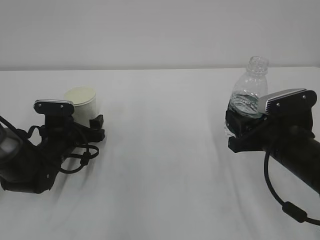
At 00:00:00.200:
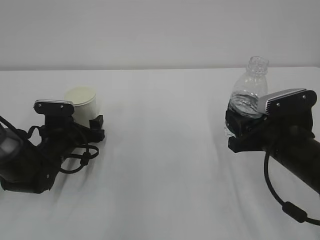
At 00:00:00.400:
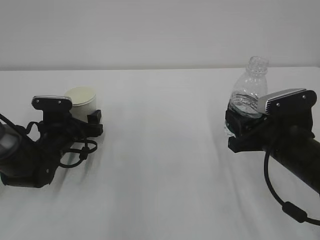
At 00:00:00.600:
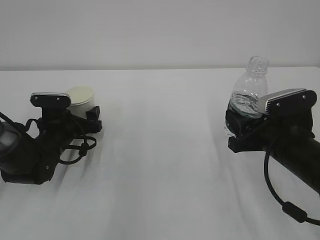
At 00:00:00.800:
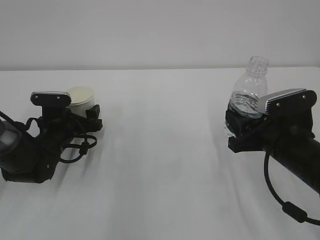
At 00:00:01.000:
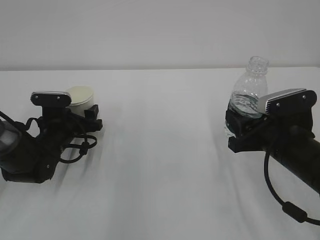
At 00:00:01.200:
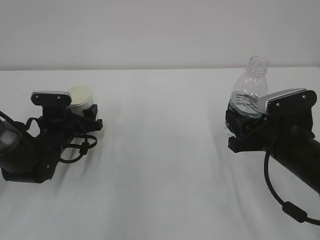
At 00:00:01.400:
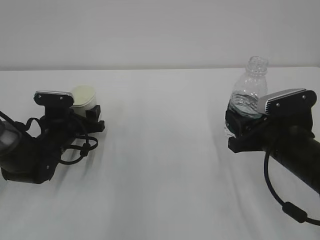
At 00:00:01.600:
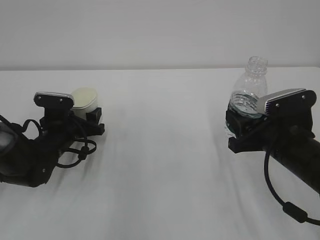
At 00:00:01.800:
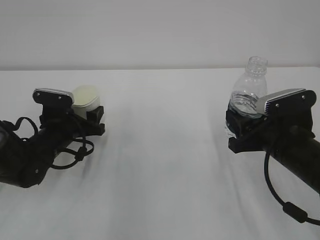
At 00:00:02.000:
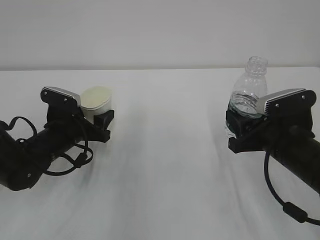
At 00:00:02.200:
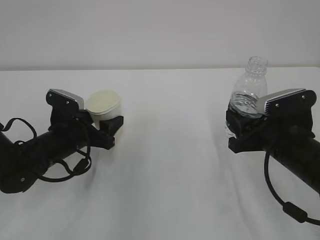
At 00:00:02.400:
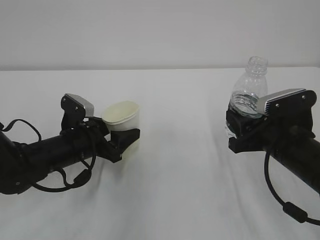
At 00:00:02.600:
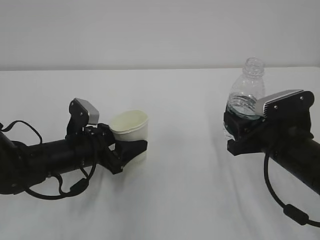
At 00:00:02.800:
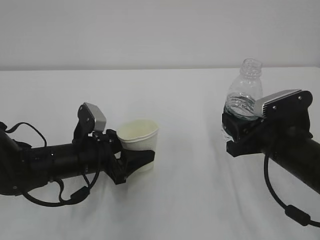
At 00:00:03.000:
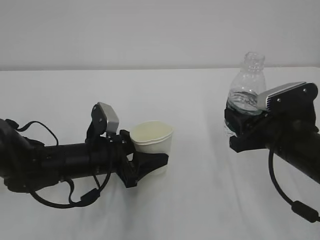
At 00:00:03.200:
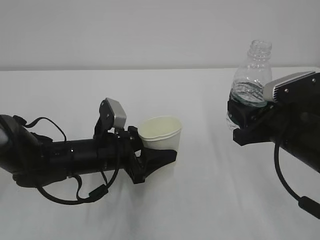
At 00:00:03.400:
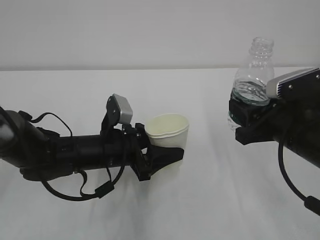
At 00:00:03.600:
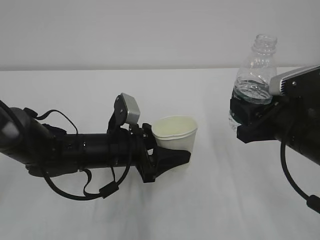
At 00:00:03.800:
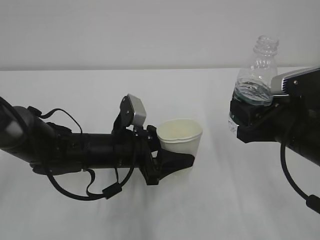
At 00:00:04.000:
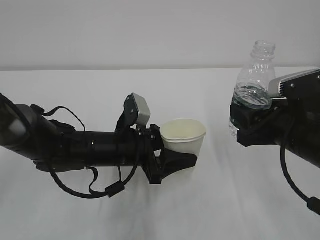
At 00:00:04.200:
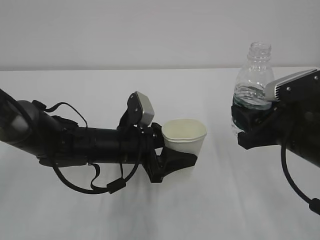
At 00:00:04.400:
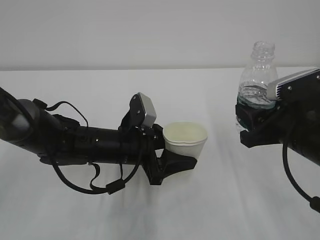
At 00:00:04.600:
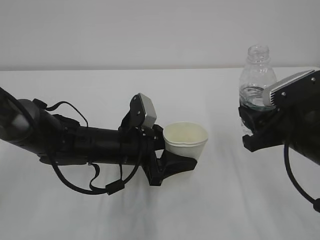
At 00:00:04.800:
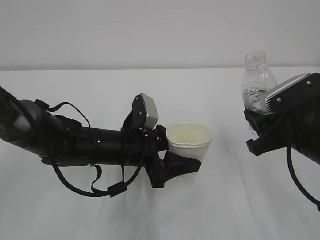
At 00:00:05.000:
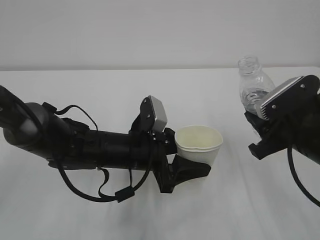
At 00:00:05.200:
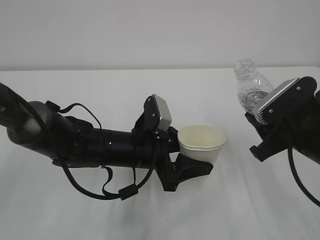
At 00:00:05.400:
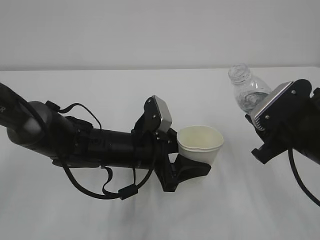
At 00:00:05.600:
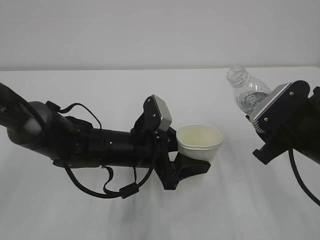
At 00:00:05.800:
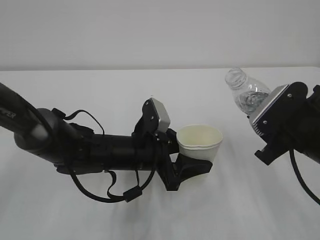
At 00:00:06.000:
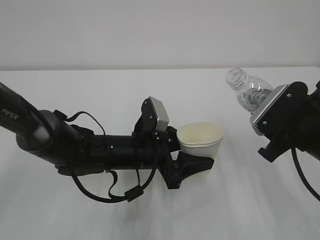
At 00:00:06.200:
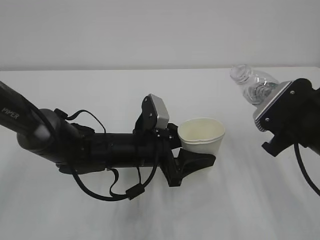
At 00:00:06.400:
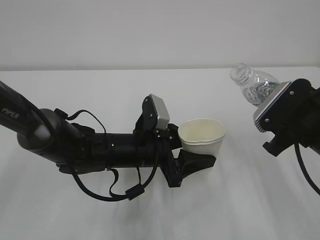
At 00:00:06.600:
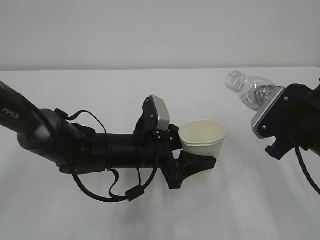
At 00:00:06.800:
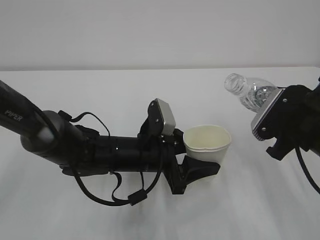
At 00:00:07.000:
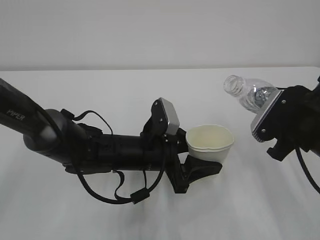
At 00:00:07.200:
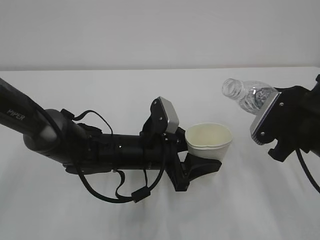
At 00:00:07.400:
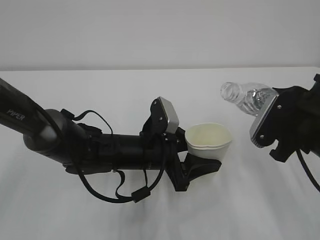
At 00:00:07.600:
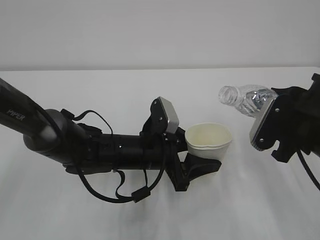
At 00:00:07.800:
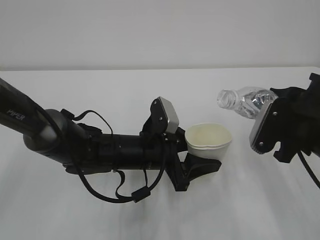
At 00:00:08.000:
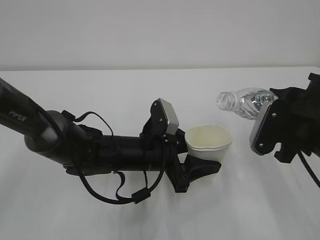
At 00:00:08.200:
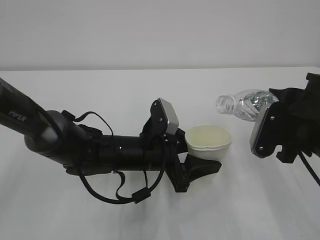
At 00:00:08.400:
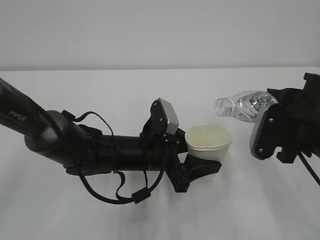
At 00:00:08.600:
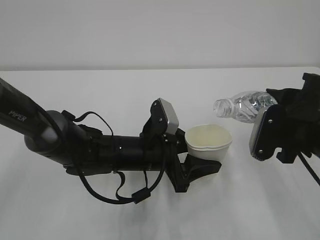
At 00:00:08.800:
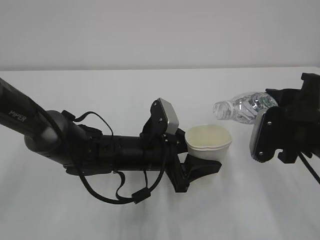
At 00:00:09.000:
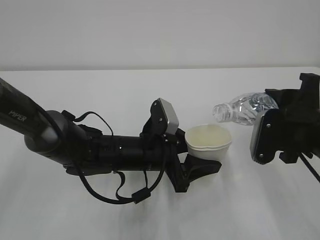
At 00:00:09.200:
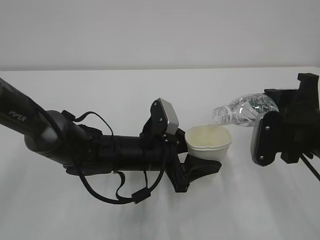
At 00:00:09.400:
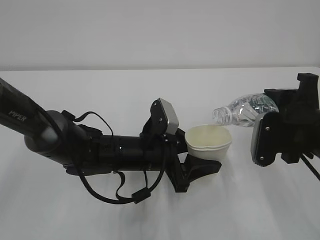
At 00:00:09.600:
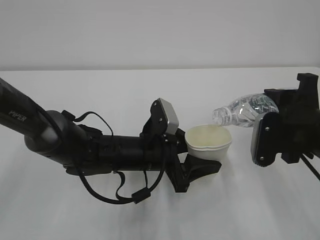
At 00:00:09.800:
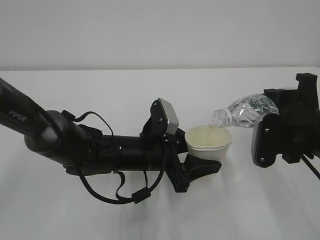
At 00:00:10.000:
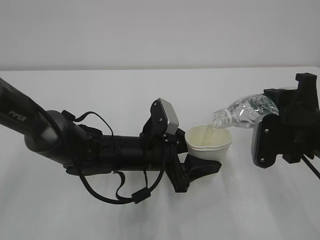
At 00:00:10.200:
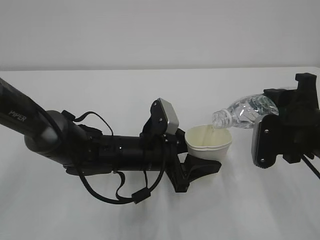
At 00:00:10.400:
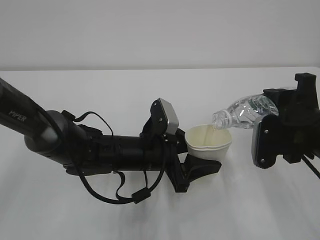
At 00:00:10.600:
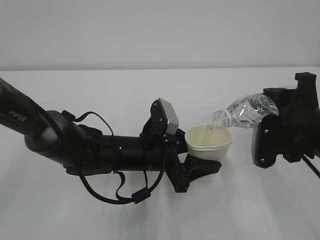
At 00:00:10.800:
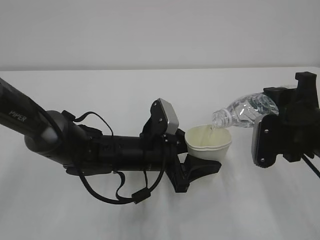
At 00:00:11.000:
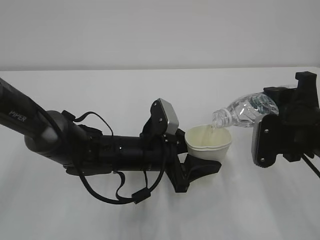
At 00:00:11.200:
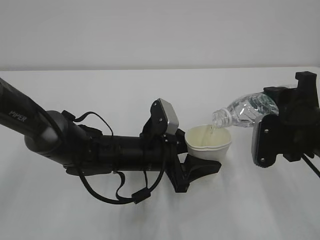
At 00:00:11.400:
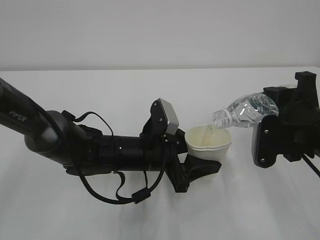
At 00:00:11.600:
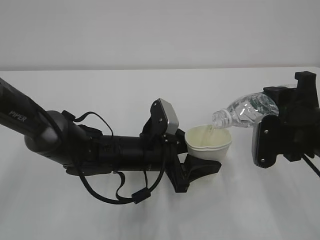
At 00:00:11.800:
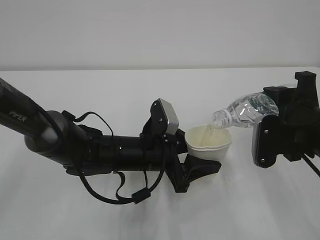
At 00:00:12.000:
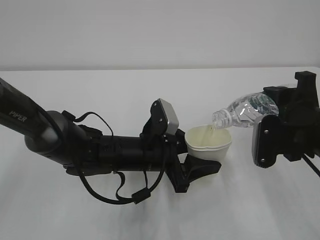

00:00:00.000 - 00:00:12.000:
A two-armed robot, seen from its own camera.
00:00:00.000 - 00:00:01.600: The left gripper closes its fingers.
00:00:01.600 - 00:00:03.000: The left gripper is displaced to the right and backward by approximately 10 cm.
00:00:03.000 - 00:00:04.400: The left gripper heads to the right, covering approximately 5 cm.
00:00:06.000 - 00:00:07.600: There are only small adjustments of the grippers.
00:00:07.600 - 00:00:09.000: The grippers move only a little.
00:00:09.000 - 00:00:10.400: The grippers make only small movements.
00:00:10.400 - 00:00:12.000: Both grippers stay put.

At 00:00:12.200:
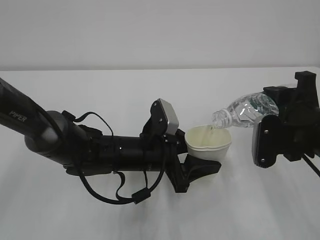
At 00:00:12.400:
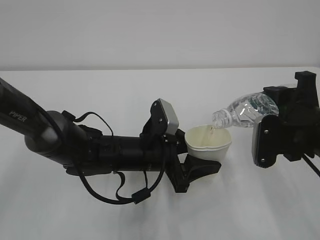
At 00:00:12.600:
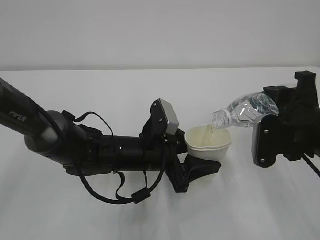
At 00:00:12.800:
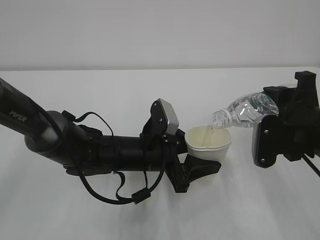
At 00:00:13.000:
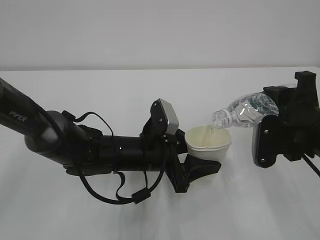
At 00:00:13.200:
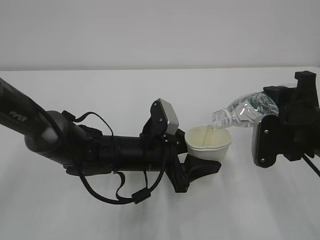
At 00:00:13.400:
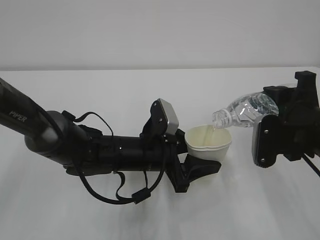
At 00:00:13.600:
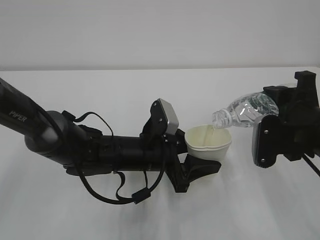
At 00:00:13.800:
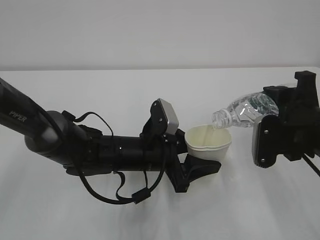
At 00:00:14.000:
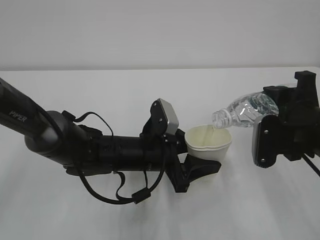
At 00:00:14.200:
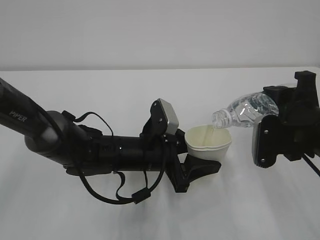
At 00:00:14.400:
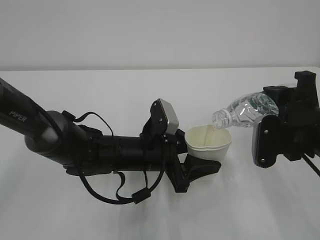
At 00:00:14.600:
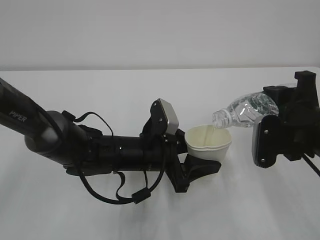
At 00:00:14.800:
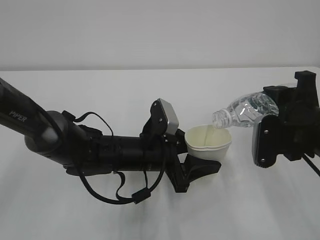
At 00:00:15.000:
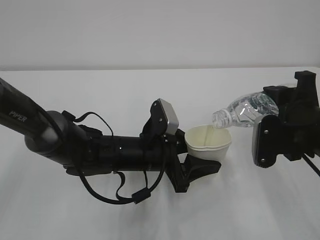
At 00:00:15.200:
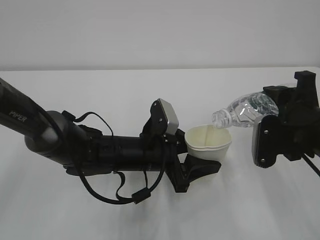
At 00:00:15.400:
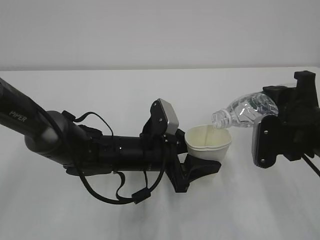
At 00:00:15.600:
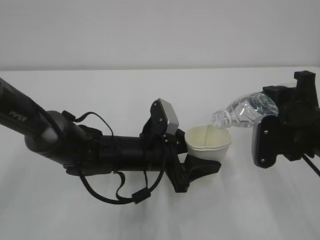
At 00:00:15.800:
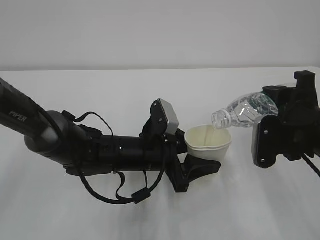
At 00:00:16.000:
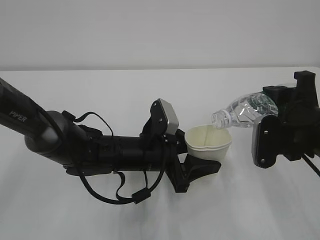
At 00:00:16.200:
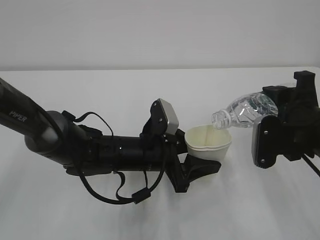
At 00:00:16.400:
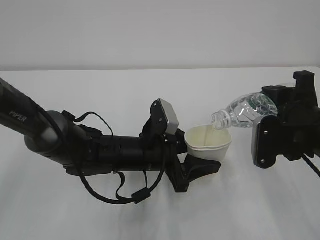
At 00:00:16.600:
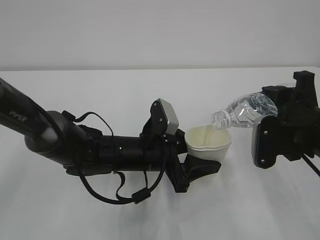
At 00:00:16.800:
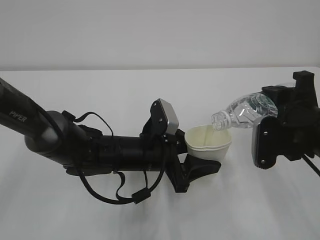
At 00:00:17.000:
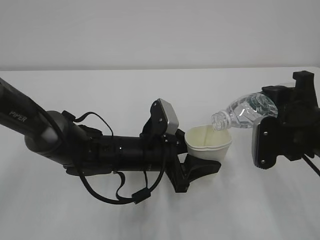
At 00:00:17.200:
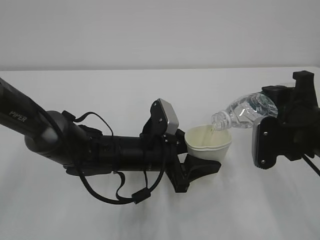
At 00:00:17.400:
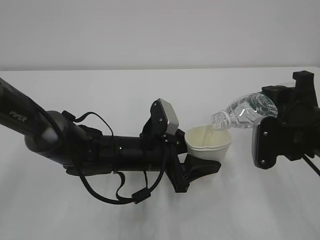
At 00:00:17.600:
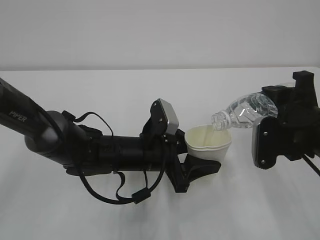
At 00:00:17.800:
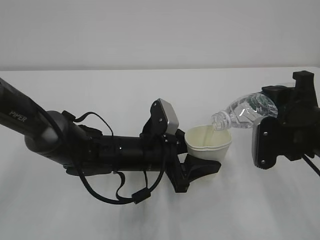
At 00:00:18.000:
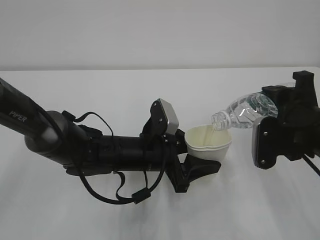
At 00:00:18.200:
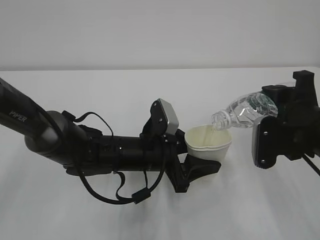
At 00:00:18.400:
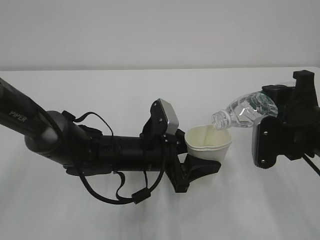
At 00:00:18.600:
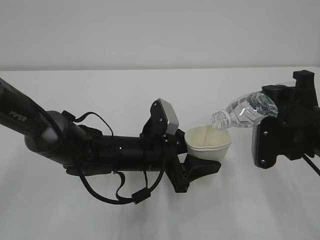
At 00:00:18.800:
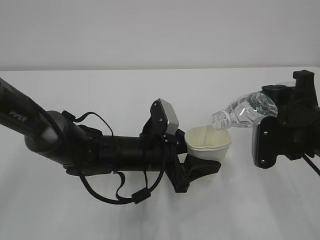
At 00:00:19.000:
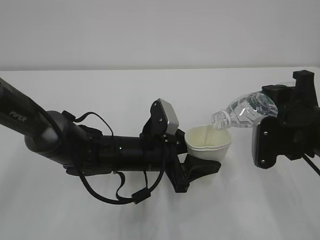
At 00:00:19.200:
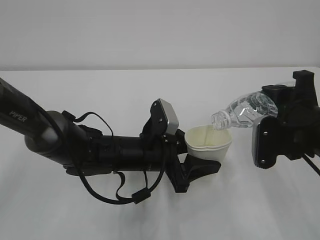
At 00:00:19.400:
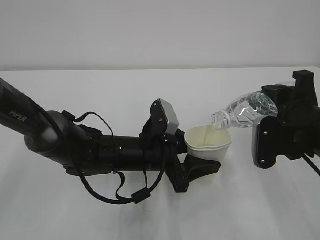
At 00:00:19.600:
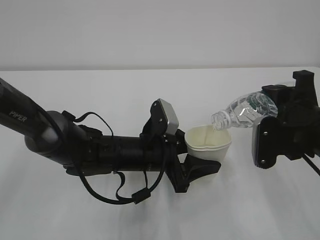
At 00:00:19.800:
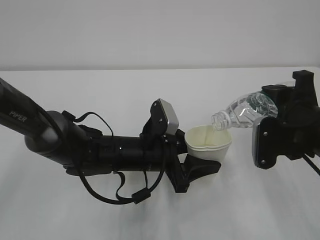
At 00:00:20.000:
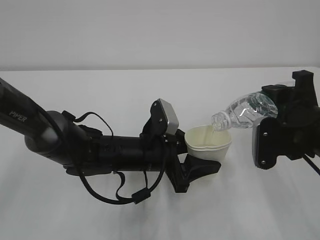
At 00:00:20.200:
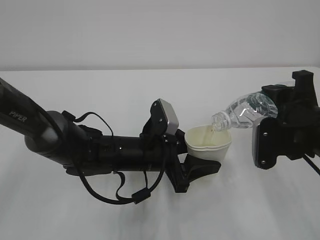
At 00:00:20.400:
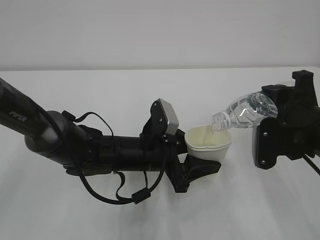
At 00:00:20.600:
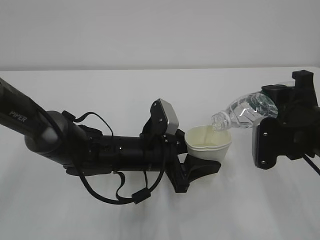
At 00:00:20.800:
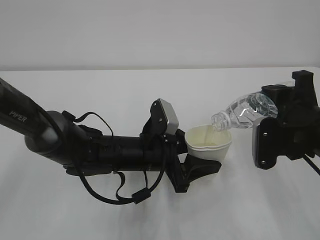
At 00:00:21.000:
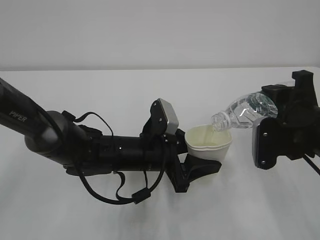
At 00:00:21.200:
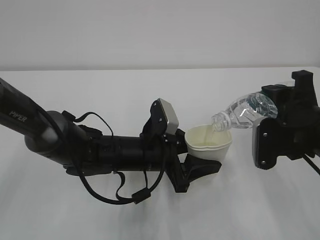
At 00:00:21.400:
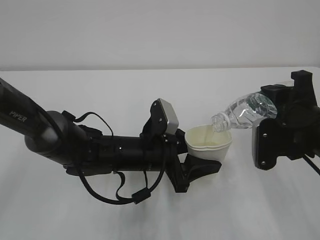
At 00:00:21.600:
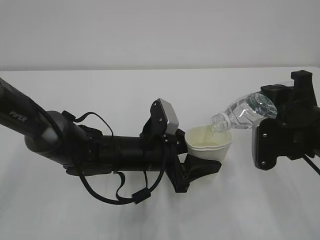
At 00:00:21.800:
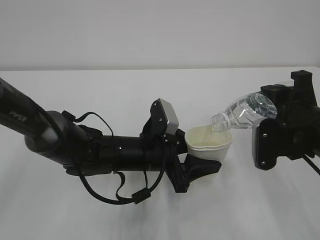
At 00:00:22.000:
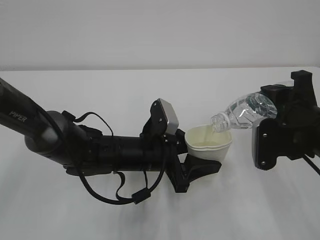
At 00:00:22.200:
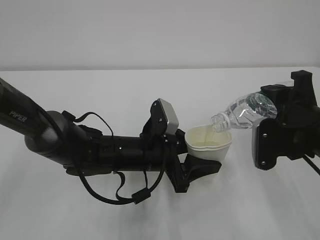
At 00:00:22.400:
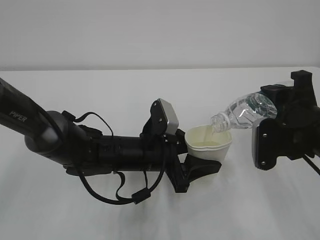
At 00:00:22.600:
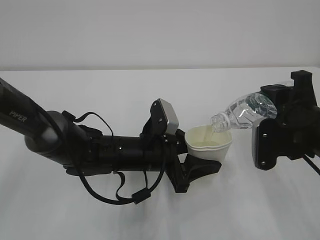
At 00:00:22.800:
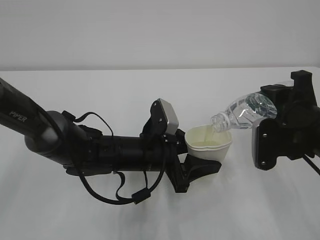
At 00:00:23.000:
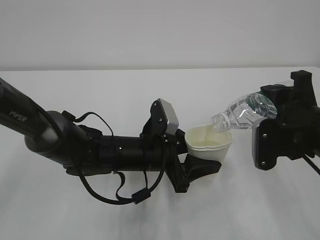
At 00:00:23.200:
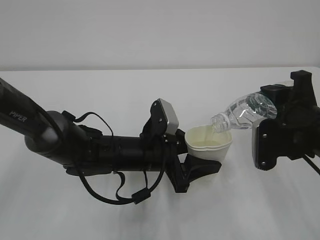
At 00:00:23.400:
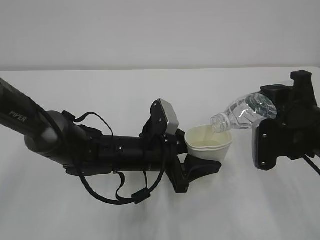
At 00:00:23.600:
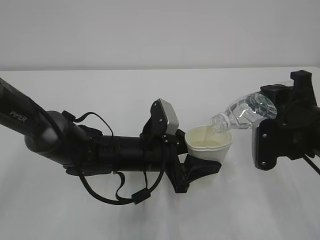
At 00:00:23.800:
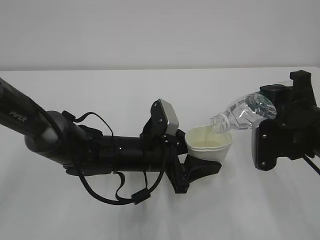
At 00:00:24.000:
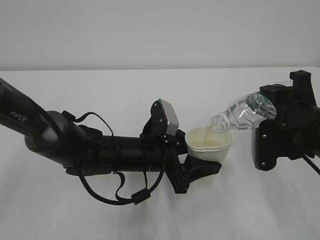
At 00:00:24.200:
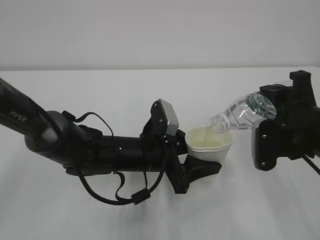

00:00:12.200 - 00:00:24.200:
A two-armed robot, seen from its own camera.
00:00:12.200 - 00:00:22.600: Both grippers stay put.
00:00:22.600 - 00:00:24.200: Both grippers stay about where they are.
